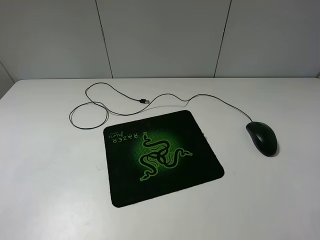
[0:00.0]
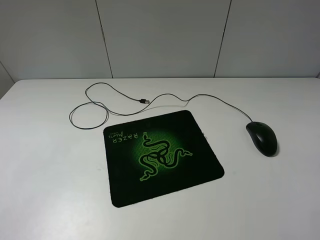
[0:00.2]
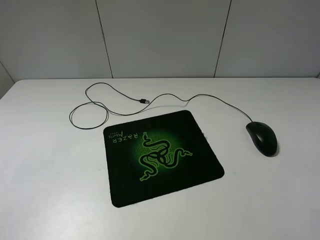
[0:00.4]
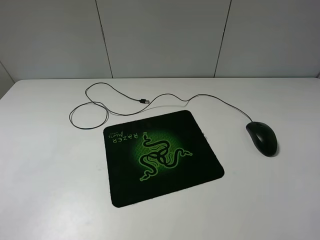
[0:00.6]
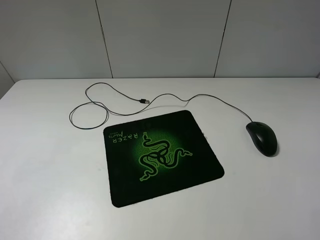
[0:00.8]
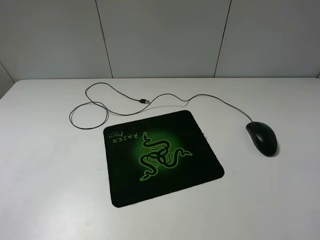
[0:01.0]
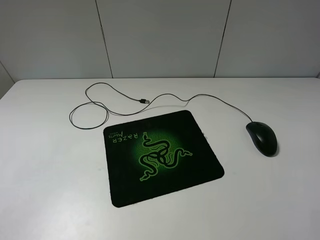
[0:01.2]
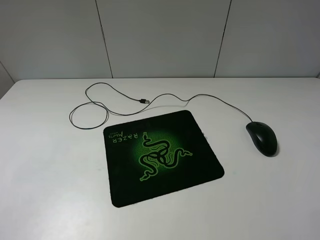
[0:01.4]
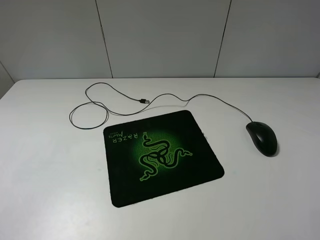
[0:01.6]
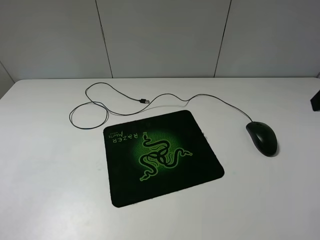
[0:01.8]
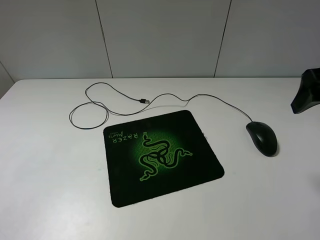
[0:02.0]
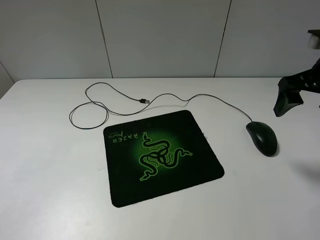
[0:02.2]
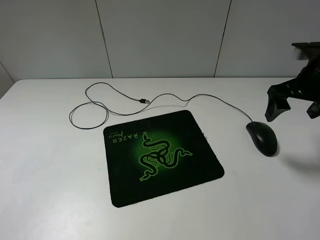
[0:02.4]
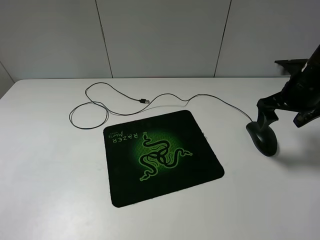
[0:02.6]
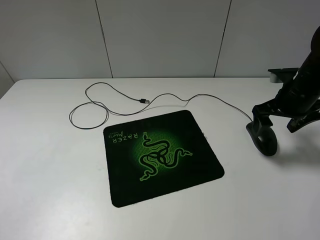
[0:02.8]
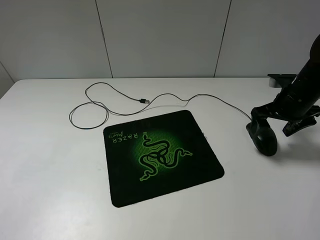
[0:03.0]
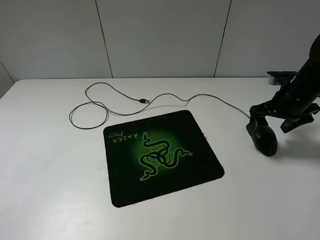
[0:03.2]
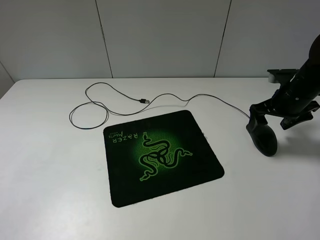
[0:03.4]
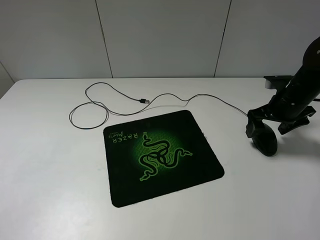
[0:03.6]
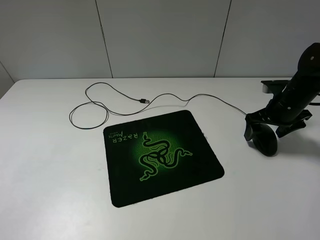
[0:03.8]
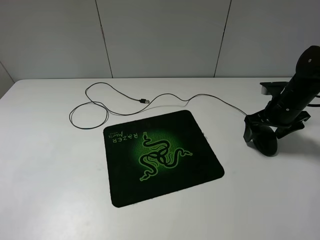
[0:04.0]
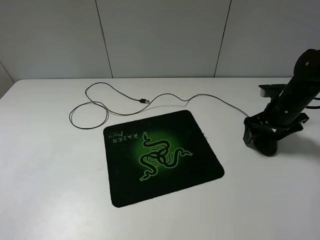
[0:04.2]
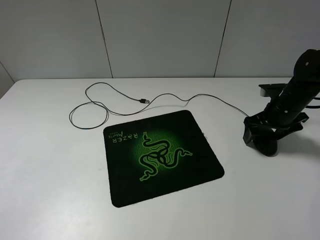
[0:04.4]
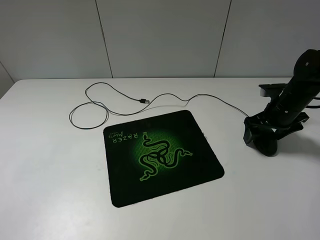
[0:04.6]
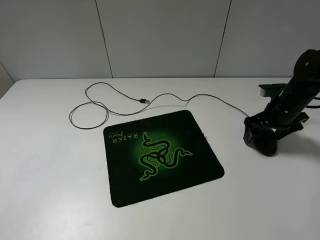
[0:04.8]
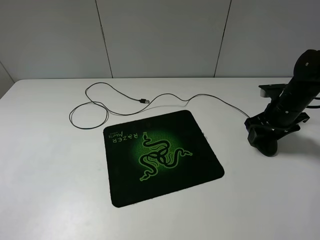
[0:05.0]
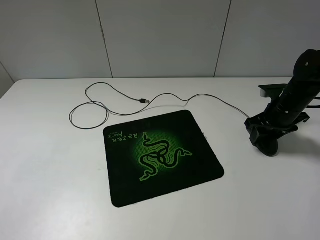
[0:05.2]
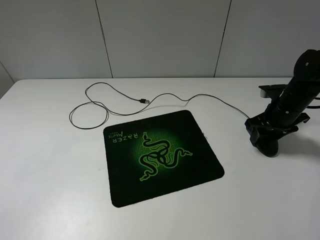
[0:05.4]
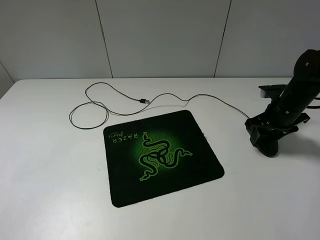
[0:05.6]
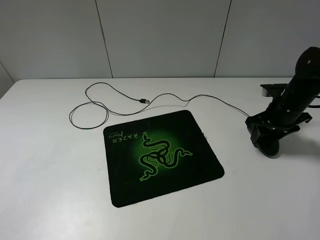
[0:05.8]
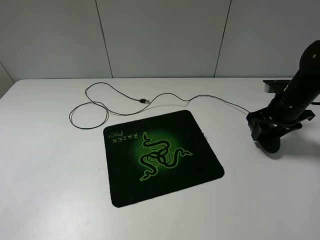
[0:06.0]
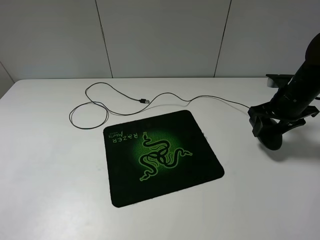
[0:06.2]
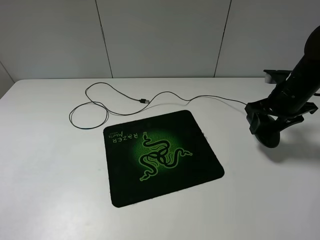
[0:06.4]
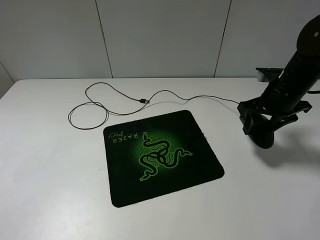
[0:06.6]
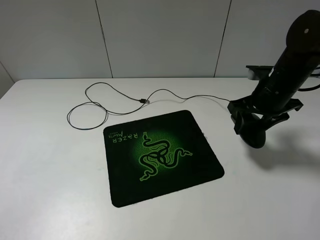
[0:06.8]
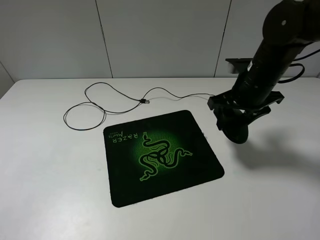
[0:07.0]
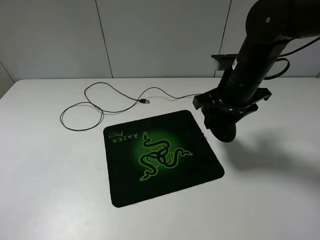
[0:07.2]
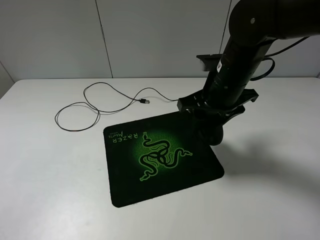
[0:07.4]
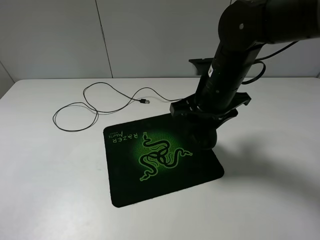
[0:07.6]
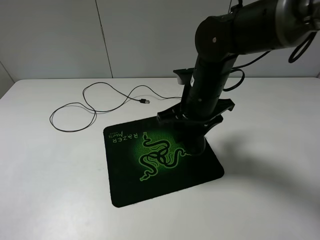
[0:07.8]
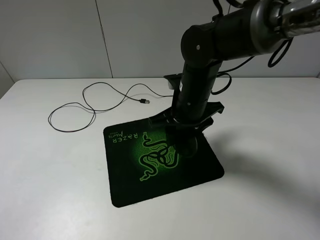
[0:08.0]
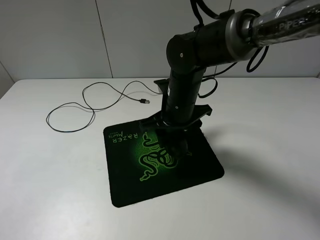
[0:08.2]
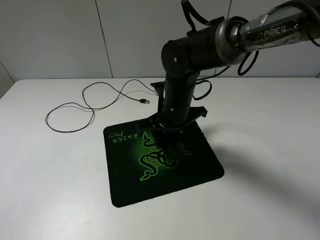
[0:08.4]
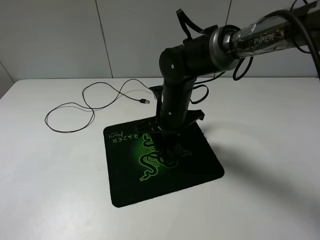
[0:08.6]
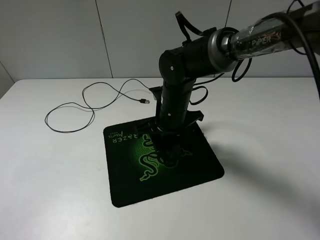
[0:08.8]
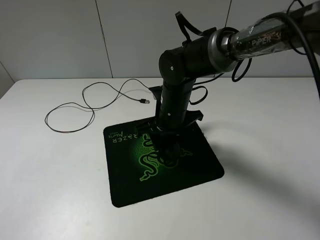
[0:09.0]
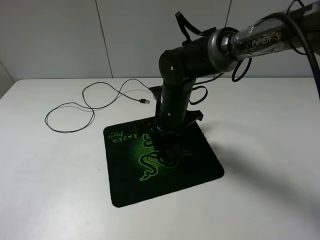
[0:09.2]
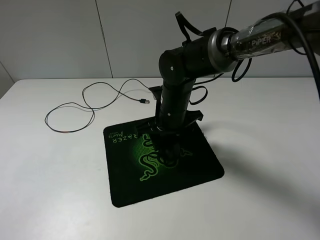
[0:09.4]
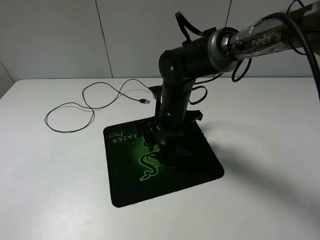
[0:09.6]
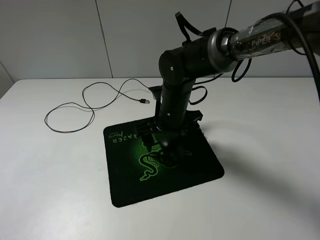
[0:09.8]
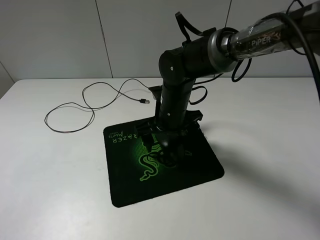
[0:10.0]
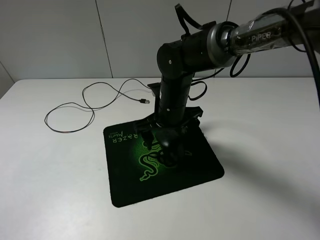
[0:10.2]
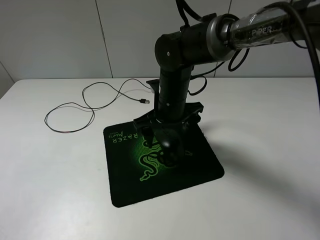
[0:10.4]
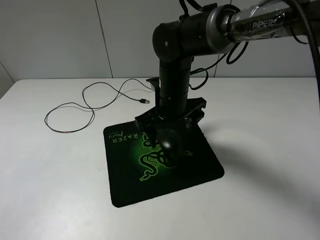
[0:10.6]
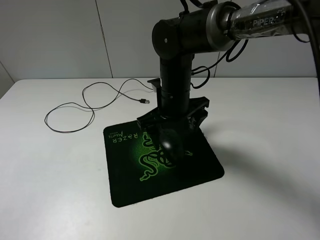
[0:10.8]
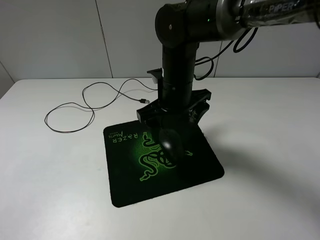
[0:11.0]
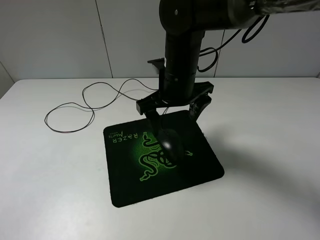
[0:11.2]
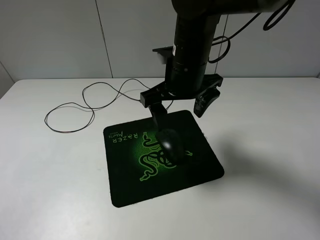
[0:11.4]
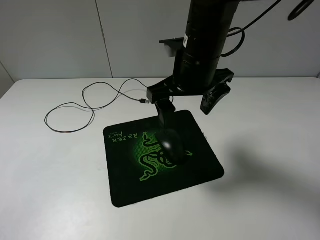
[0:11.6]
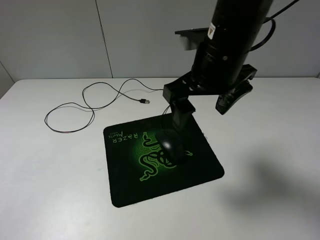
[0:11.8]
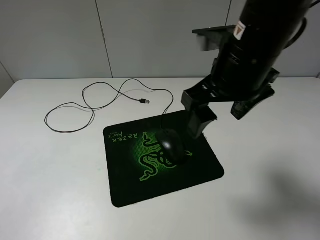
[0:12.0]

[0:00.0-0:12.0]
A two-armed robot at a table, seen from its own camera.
Step, 0:00.0 to 0:05.6: Grasp the mouse with the right gripper.
Step, 0:05.8 to 0:10.2: Place the mouse on the mouse mat with the right gripper.
0:01.6 to 0:03.0: The right gripper travels forward and downward by some 30 cm.
0:03.0 to 0:04.4: The grippers move only a little.
0:04.4 to 0:06.0: The right gripper closes up.
0:06.0 to 0:07.6: The right gripper moves to the left, about 20 cm.
0:07.6 to 0:09.0: The right gripper shifts some 10 cm downward and to the left.
0:09.0 to 0:10.4: The right gripper opens up.
0:10.4 to 0:12.0: The right gripper travels upward, backward and to the right by about 20 cm.

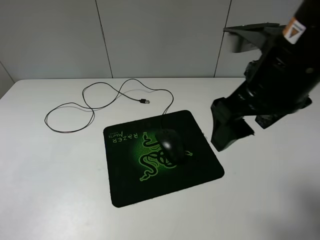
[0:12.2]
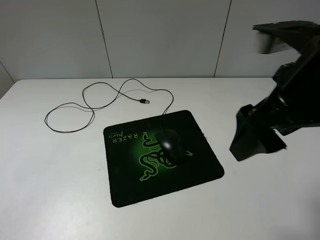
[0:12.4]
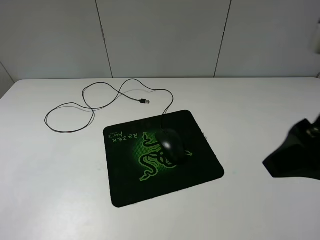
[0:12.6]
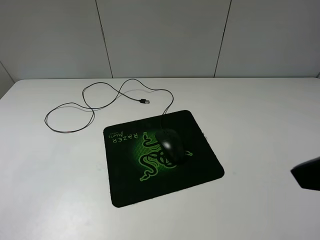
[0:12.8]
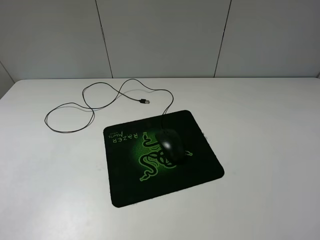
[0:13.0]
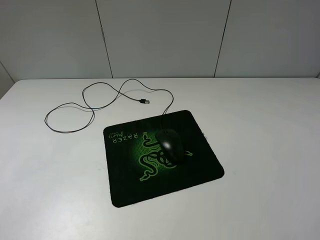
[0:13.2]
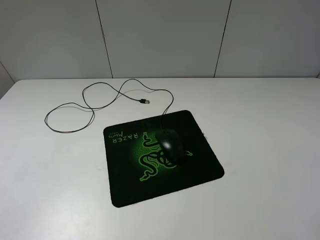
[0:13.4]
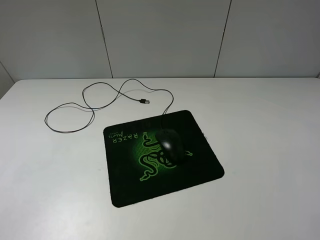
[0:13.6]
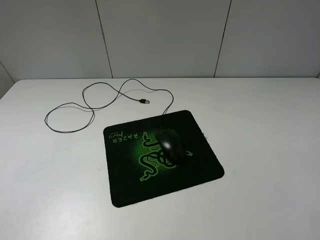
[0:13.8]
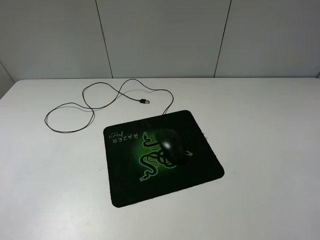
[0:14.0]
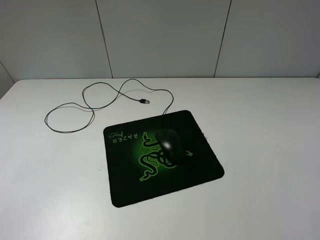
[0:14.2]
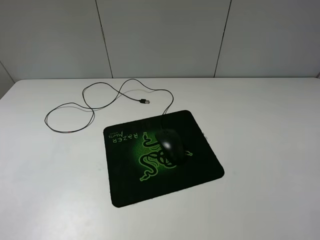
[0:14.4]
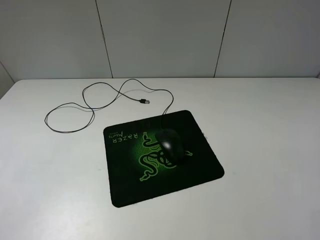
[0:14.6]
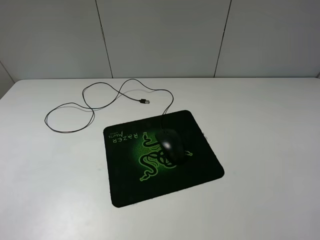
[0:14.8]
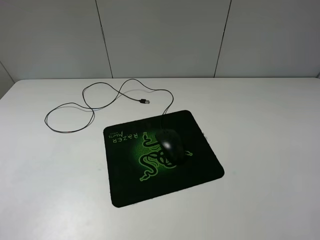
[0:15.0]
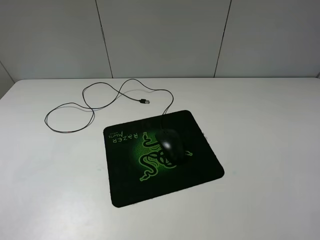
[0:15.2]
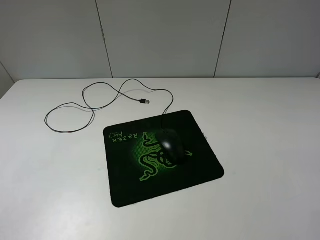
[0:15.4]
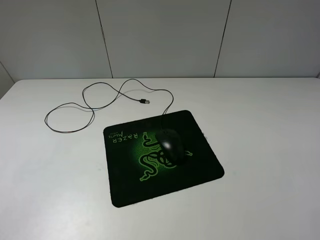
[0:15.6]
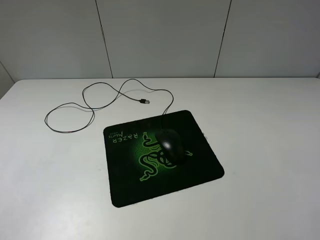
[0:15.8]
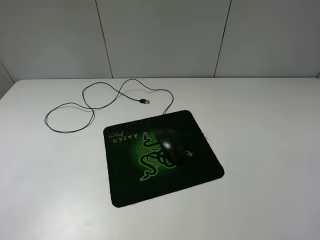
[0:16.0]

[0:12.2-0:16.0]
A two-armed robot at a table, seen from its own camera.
0:12.2 to 0:13.4: The right gripper is displaced backward and to the right by roughly 20 cm.
0:14.8 to 0:16.0: Neither gripper changes place.
